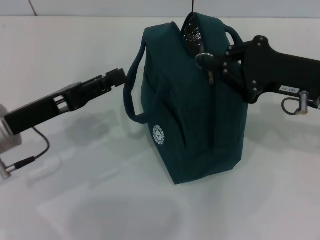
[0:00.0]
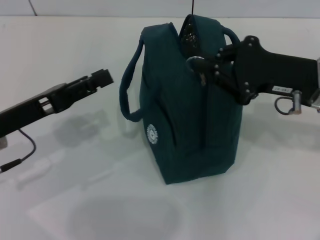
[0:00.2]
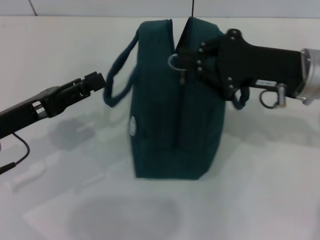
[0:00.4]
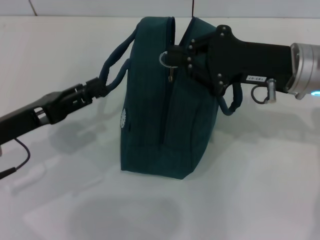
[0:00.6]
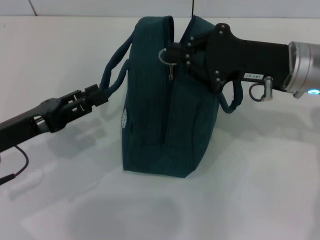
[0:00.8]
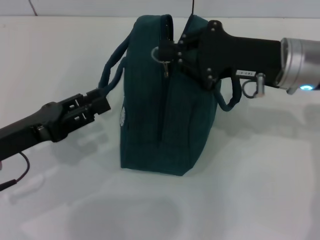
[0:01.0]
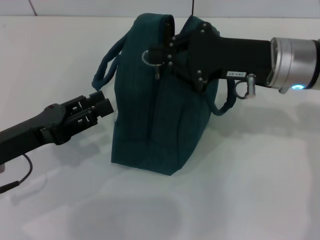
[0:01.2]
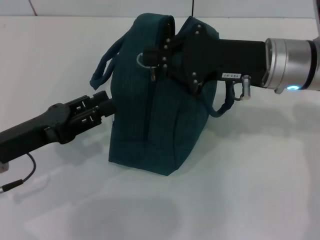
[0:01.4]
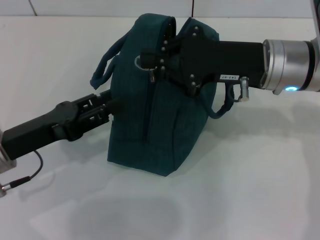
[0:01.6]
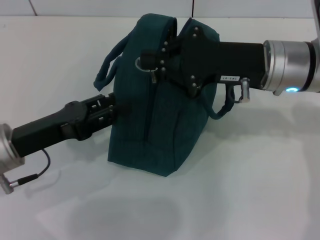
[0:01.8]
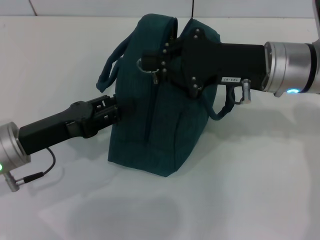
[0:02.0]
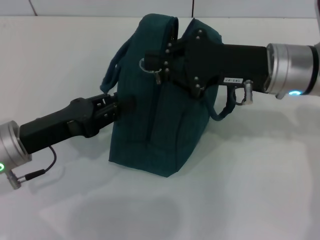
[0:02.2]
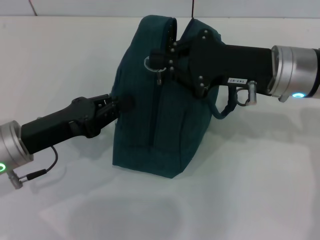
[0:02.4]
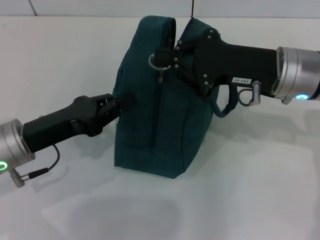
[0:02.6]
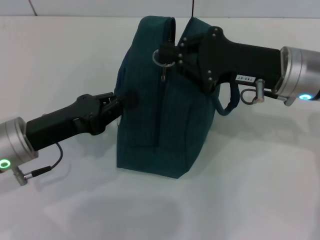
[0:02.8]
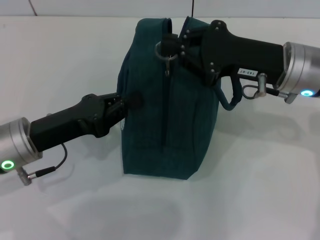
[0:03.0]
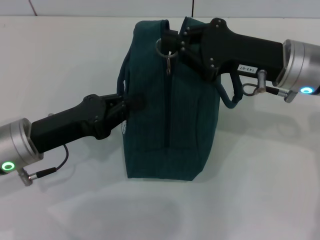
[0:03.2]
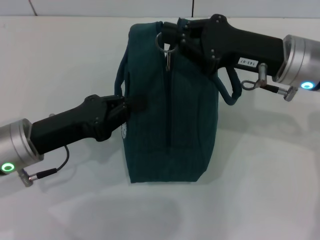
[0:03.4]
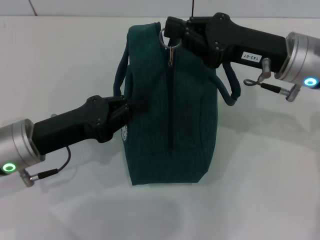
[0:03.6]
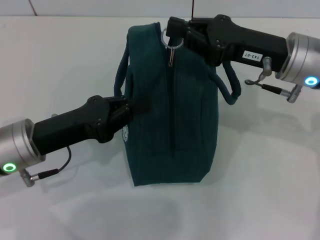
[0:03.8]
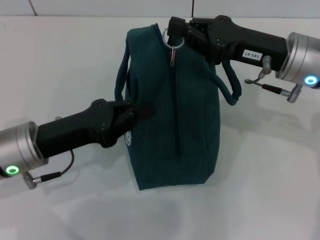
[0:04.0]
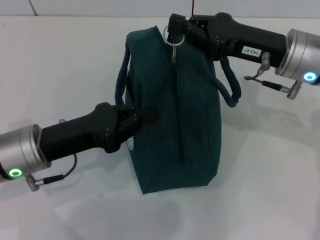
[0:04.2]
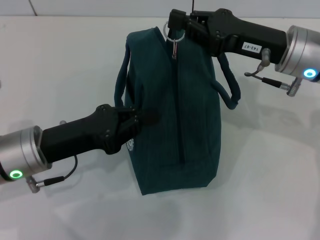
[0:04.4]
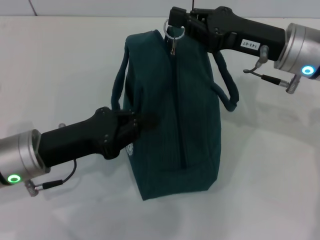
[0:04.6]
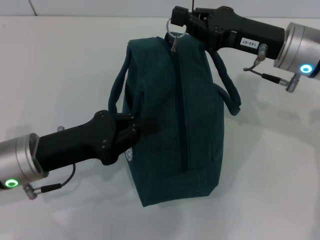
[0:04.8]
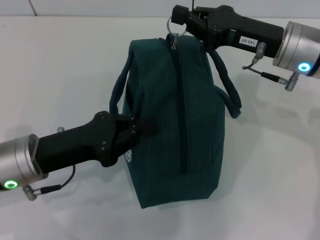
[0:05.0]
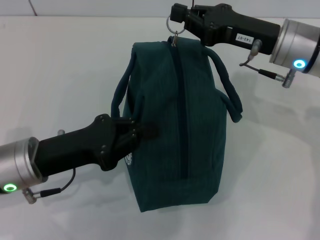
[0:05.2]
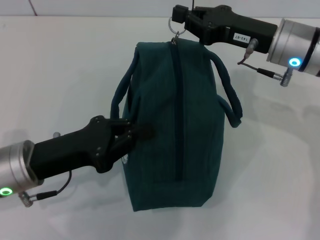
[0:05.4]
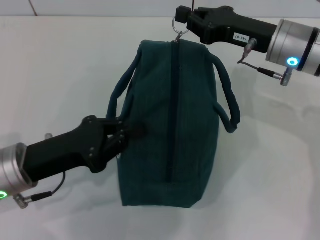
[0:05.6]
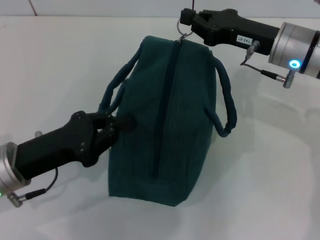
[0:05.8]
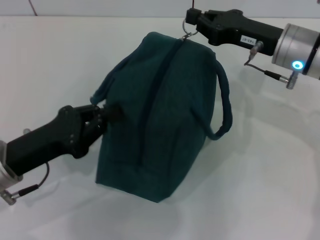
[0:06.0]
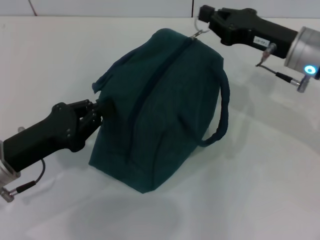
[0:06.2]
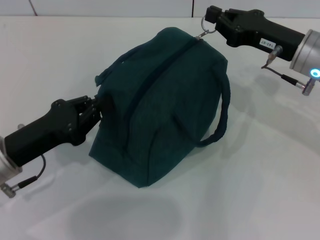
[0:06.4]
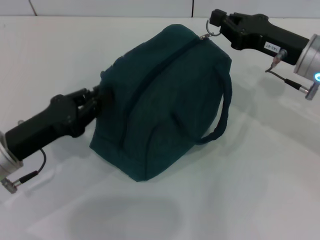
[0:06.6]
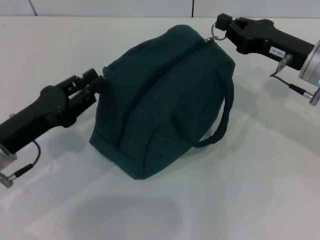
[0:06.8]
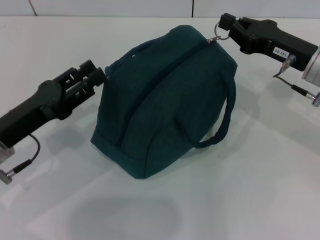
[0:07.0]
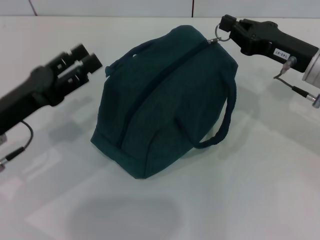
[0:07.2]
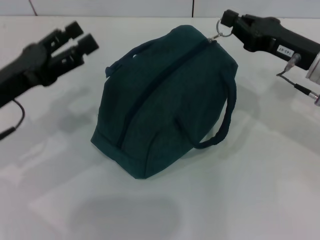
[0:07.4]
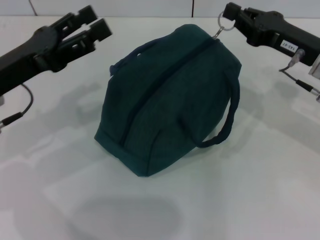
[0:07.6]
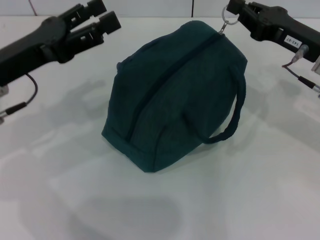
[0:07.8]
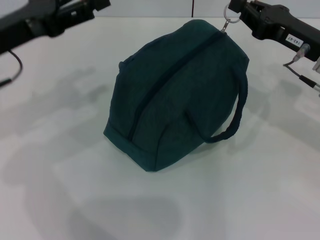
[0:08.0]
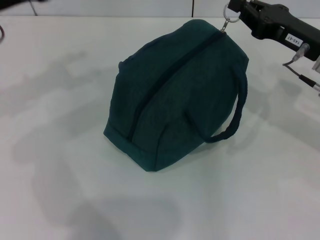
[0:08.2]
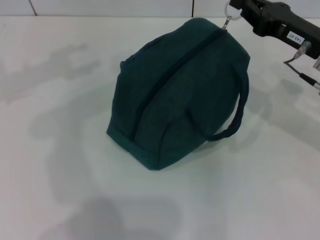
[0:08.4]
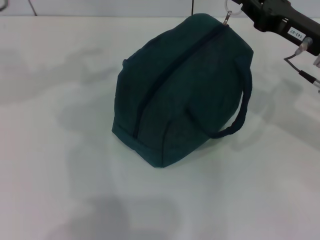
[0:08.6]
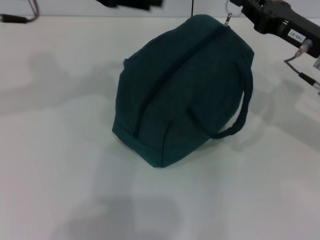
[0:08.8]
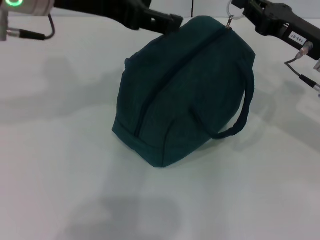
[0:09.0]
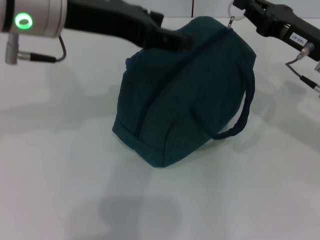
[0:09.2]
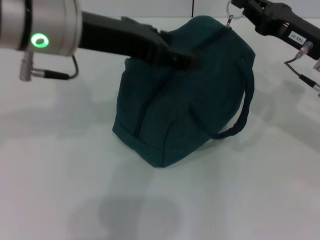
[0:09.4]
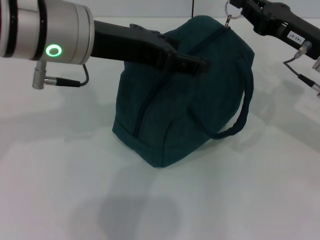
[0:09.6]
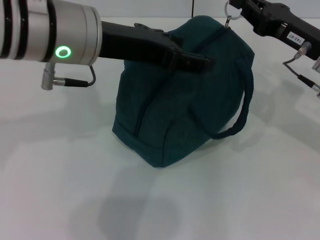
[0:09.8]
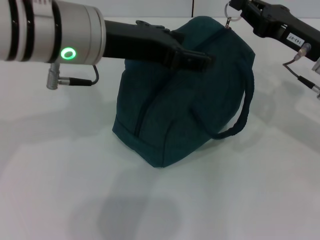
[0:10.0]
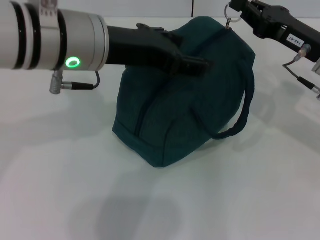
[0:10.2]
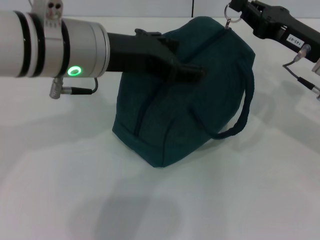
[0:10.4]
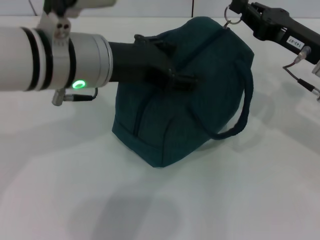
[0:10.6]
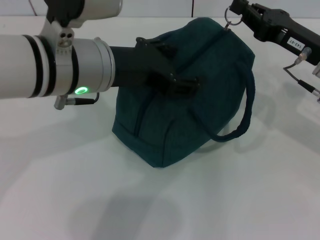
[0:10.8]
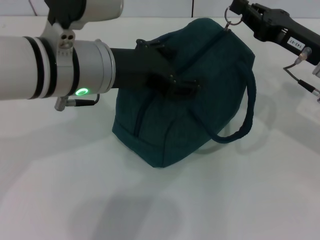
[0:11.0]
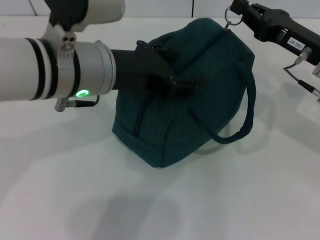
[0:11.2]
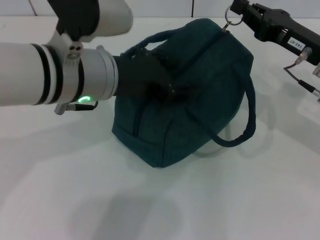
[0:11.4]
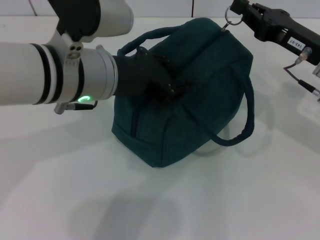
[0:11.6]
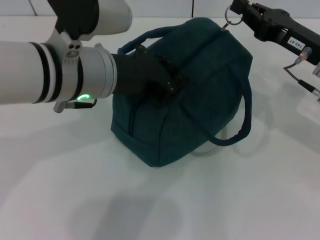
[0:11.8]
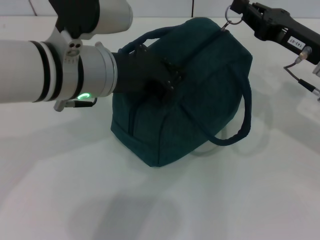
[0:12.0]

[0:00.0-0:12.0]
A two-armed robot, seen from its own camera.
0:00.0 to 0:01.6: The right gripper is displaced to the left by roughly 10 cm.
0:01.6 to 0:03.0: The left gripper closes its fingers.
0:06.0 to 0:07.6: The right gripper changes place by approximately 5 cm. Meanwhile the left gripper travels upward and forward by roughly 10 cm, and opens.
0:07.6 to 0:09.0: The left gripper moves upward and to the right, some 15 cm.
0:09.0 to 0:10.4: The left gripper moves downward, approximately 5 cm.
0:10.4 to 0:12.0: The left gripper closes its fingers.

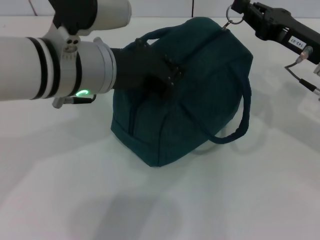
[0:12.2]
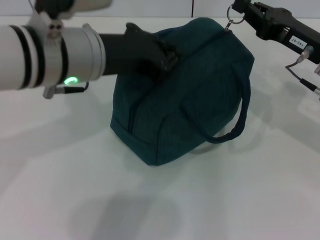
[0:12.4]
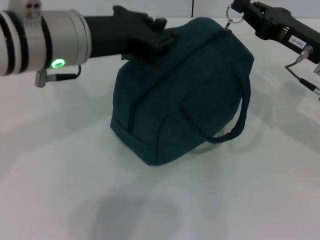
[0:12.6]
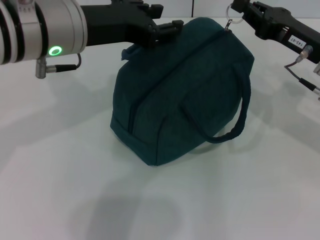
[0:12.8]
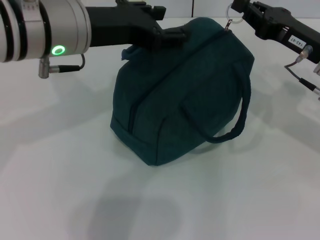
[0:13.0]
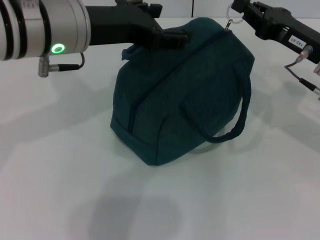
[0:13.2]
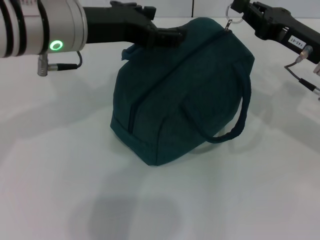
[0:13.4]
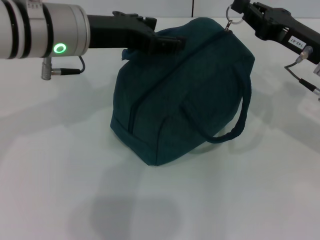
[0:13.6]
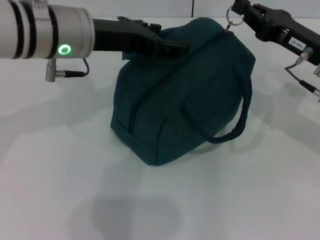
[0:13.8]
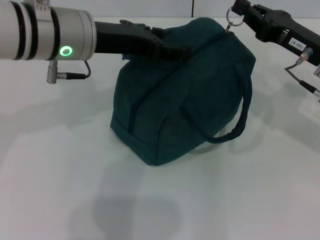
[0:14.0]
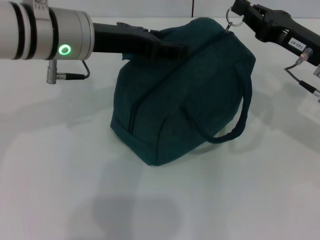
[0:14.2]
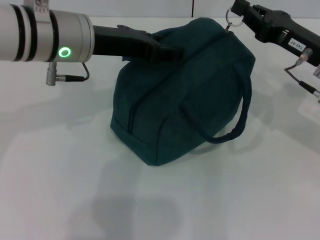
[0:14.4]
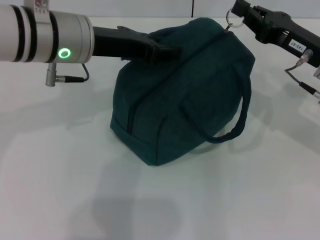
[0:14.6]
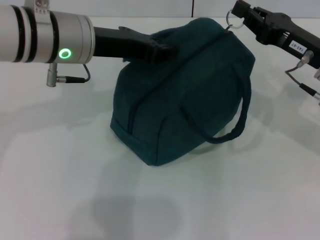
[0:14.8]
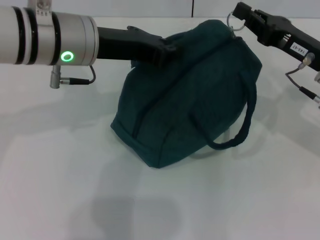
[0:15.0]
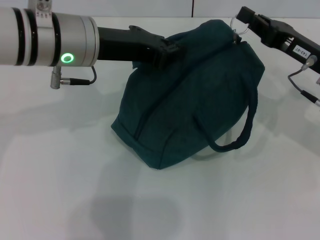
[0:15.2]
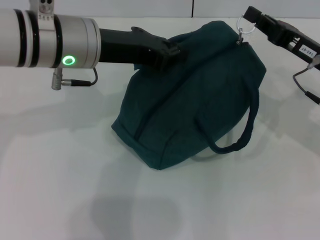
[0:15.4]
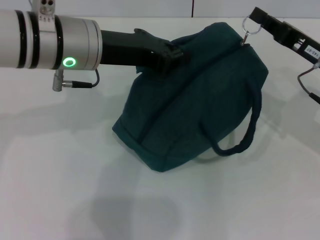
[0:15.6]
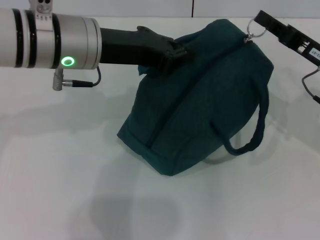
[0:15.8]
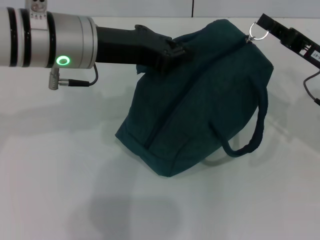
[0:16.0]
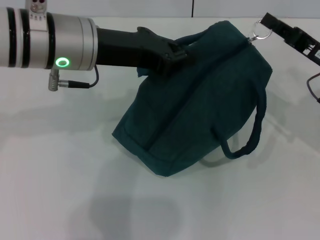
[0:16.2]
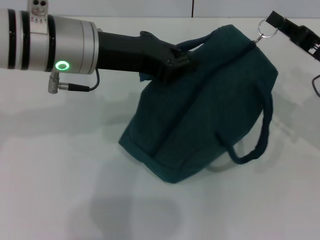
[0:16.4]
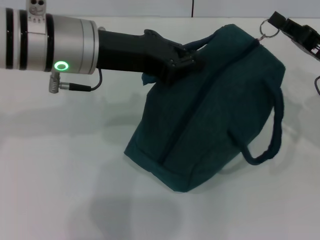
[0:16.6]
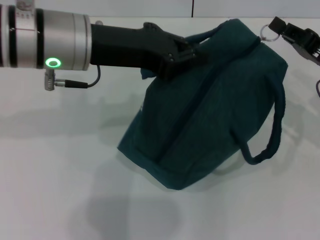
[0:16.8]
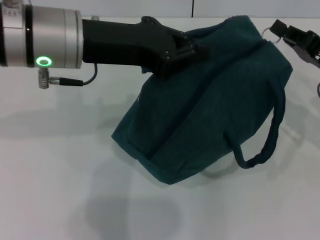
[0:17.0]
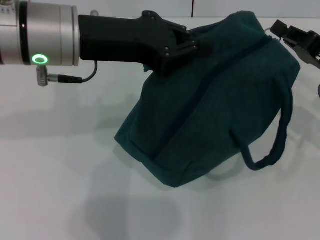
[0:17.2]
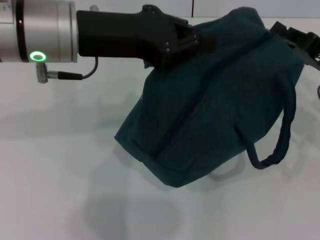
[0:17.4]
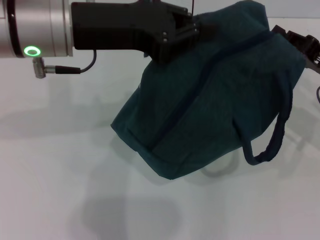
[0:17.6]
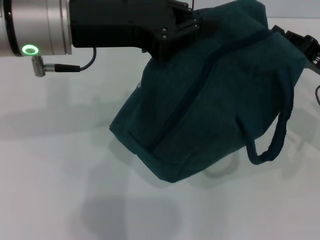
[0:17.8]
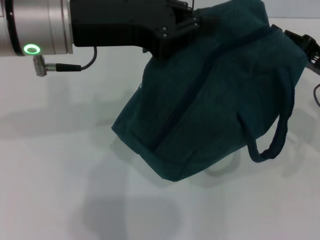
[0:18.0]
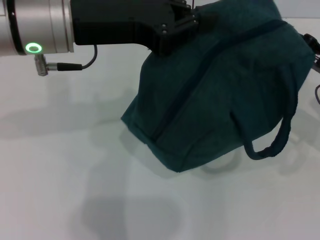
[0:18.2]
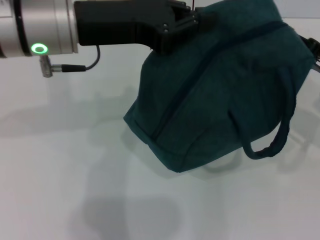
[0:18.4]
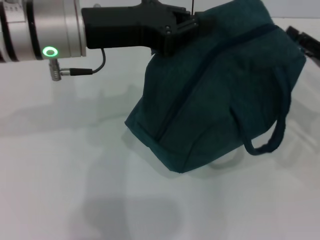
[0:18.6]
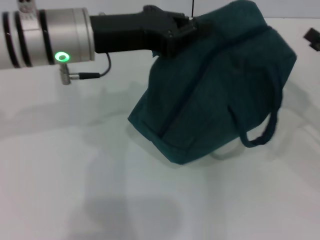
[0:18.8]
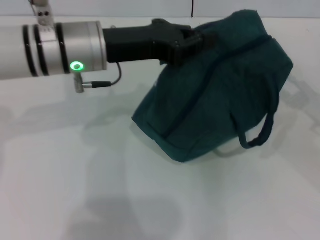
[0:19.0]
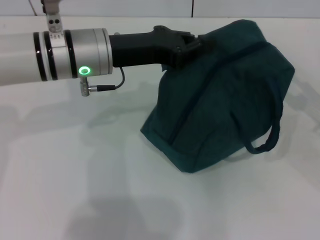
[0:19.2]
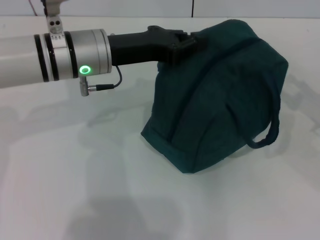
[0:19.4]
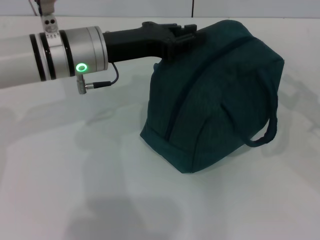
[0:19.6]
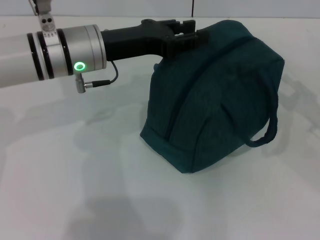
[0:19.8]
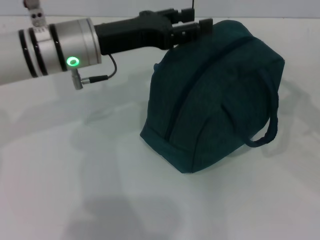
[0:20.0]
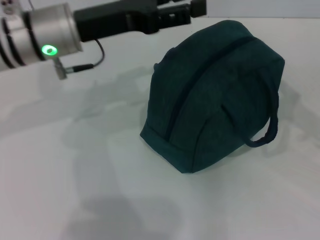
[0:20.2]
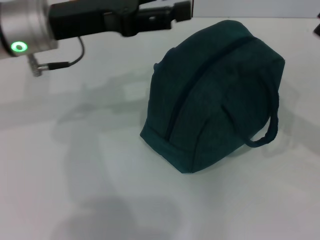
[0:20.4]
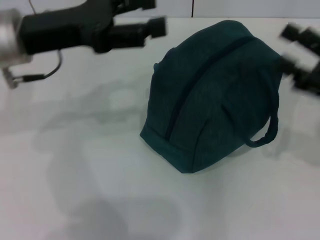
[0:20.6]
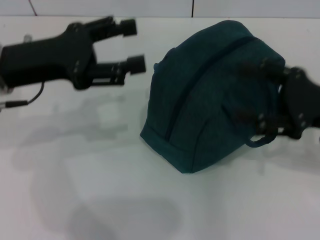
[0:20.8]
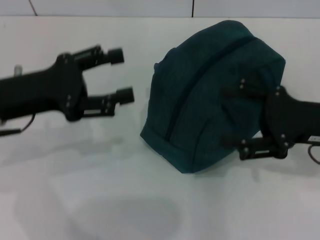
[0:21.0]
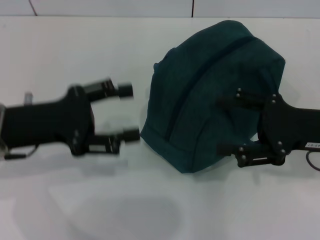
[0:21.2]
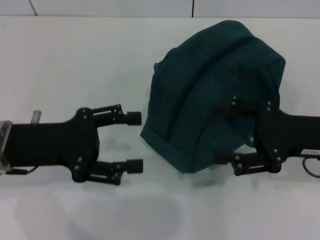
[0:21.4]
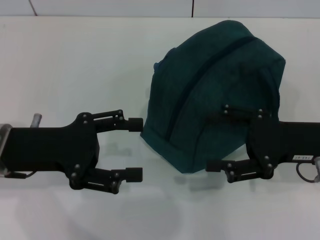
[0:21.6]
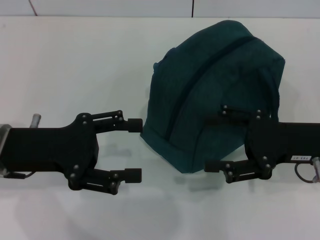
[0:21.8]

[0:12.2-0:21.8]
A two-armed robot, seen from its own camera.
Step, 0:12.2 to 0:18.4: Zip up the lunch bag with your right hand.
Step, 0:18.8 to 0:19.6: Hold the lunch bag with your left hand.
0:12.2 to 0:13.8: The left gripper moves approximately 5 cm, and opens up.
0:13.8 to 0:15.4: The left gripper closes its fingers.
0:17.0 to 0:18.6: The right gripper opens up.
0:18.6 to 0:20.2: The right gripper changes place by roughly 5 cm, and opens up. The left gripper opens.
0:20.2 to 0:21.8: The right gripper heads to the left, covering approximately 10 cm, while the left gripper moves backward, to the left and downward, some 15 cm.
